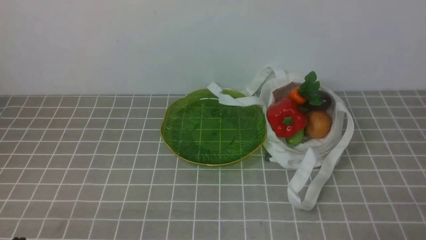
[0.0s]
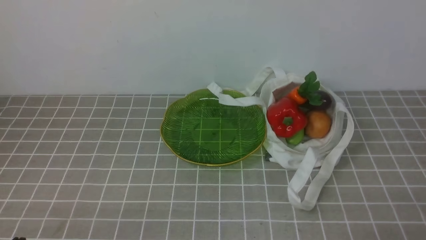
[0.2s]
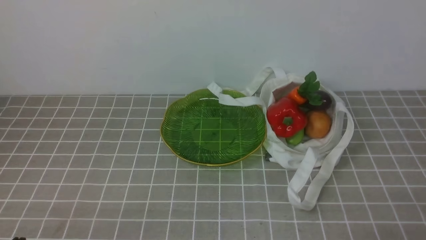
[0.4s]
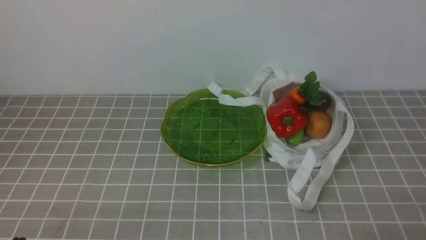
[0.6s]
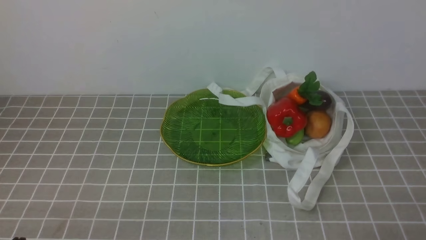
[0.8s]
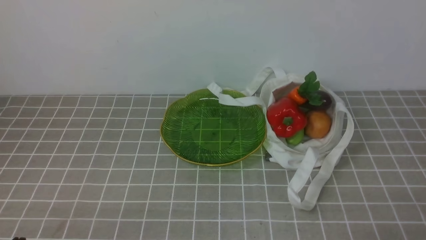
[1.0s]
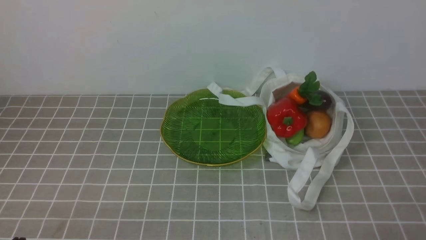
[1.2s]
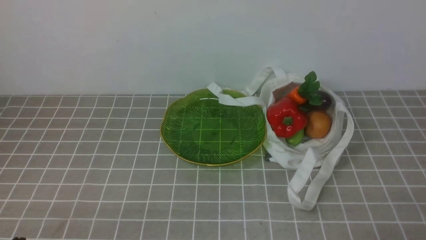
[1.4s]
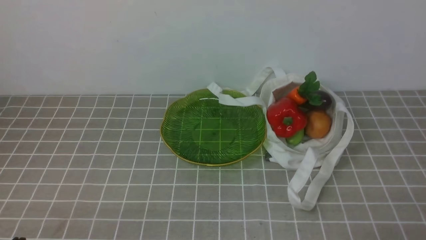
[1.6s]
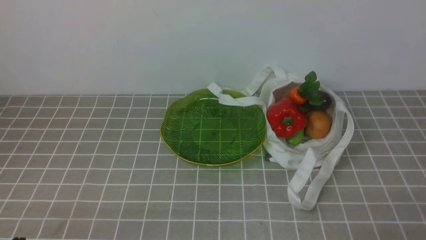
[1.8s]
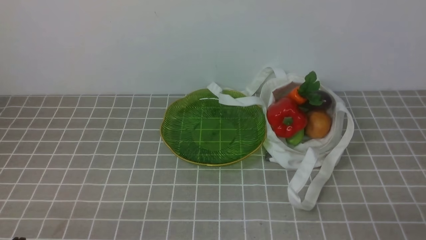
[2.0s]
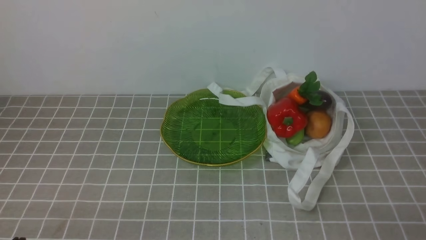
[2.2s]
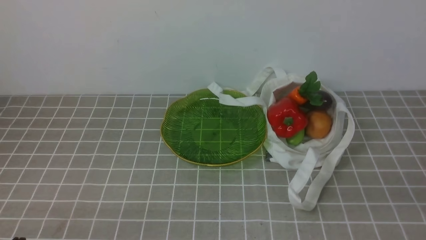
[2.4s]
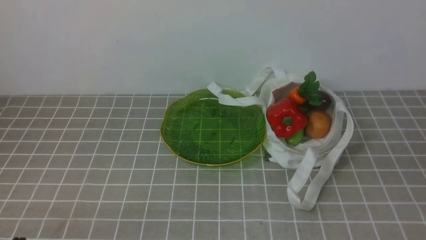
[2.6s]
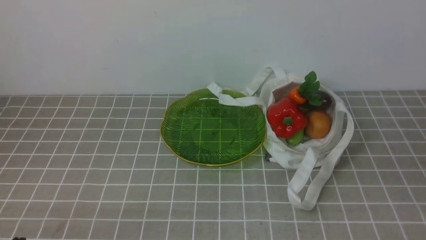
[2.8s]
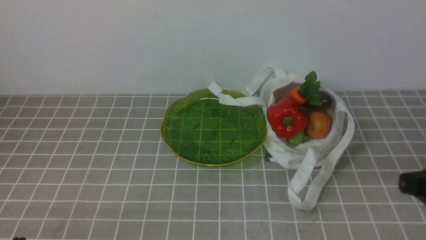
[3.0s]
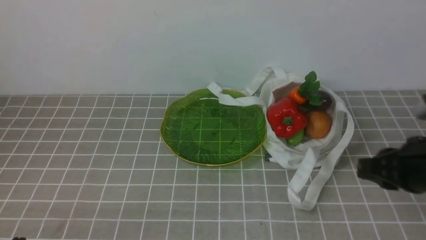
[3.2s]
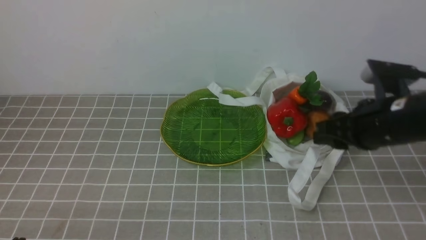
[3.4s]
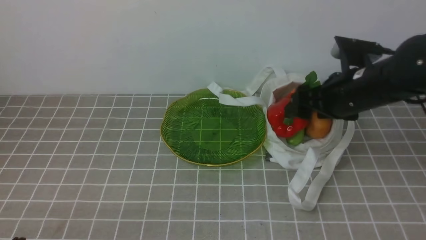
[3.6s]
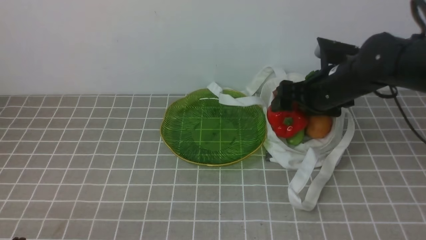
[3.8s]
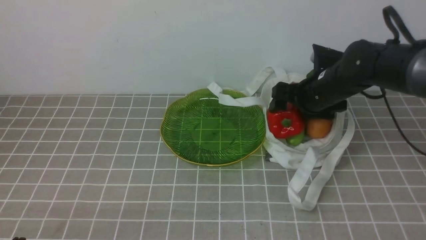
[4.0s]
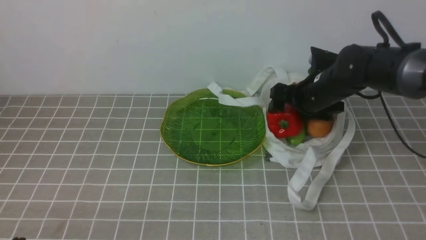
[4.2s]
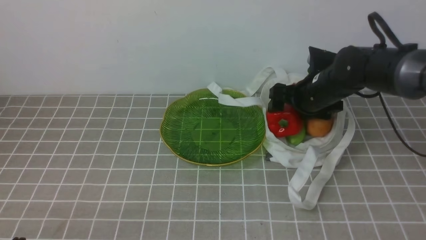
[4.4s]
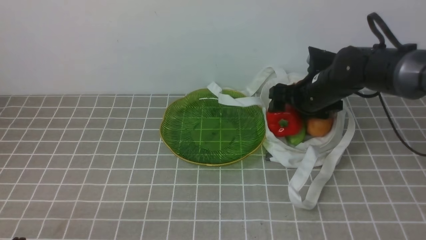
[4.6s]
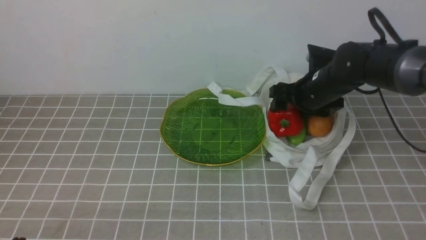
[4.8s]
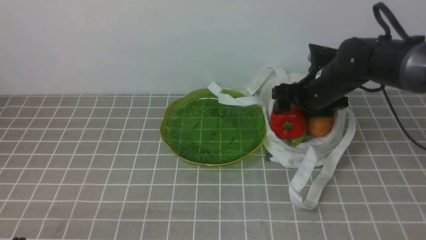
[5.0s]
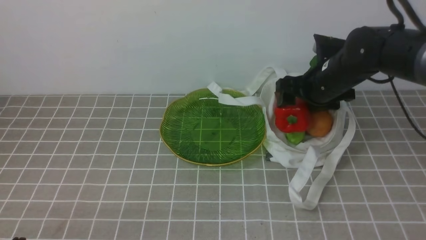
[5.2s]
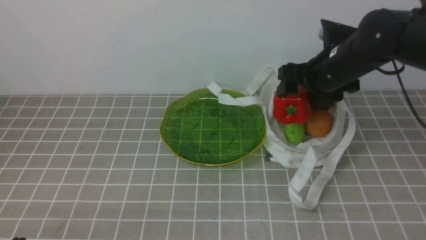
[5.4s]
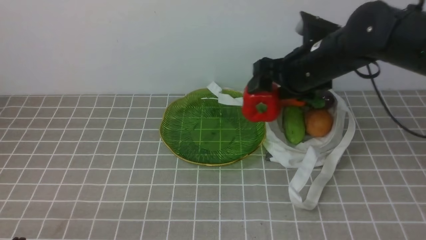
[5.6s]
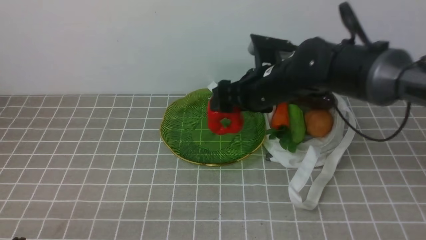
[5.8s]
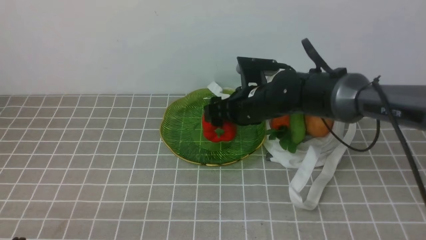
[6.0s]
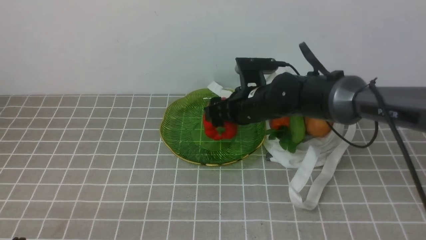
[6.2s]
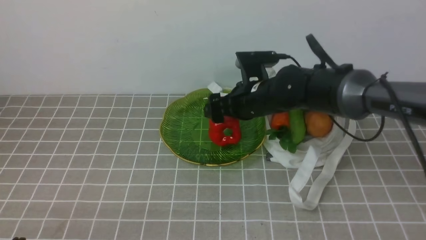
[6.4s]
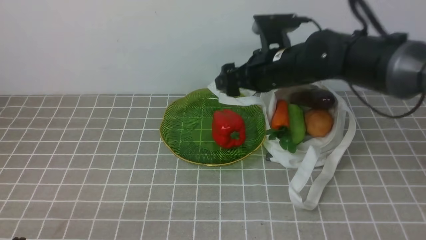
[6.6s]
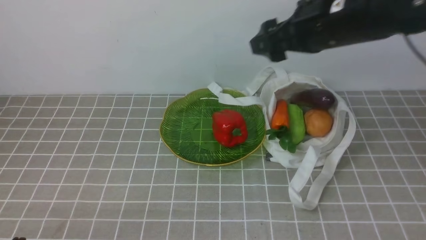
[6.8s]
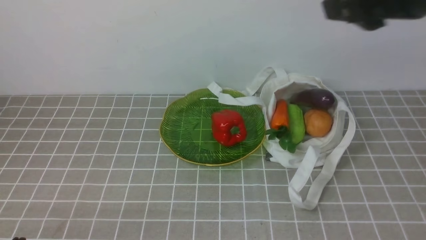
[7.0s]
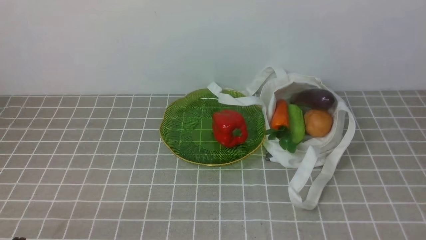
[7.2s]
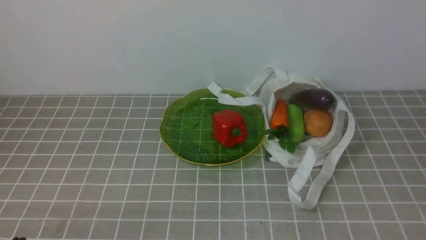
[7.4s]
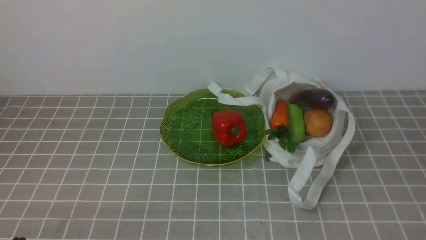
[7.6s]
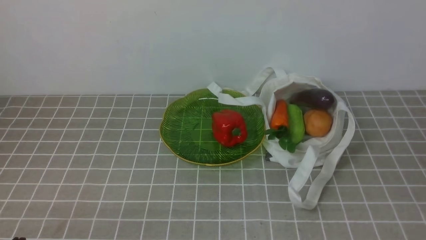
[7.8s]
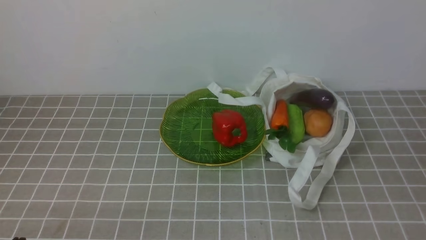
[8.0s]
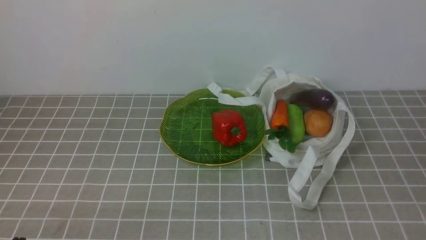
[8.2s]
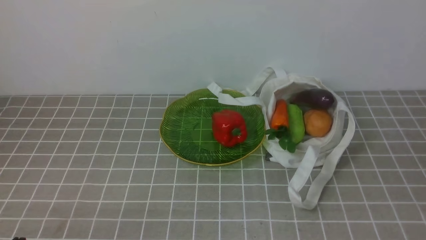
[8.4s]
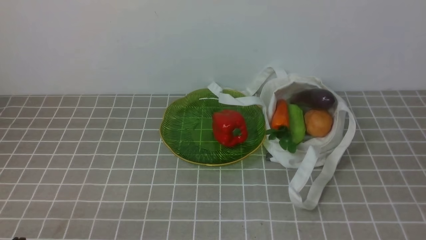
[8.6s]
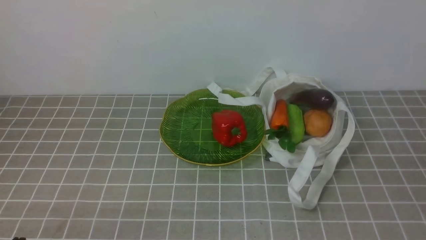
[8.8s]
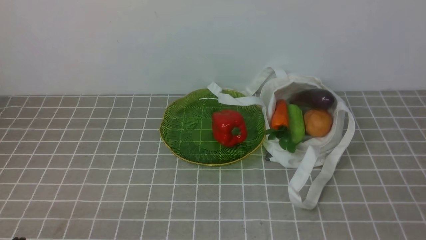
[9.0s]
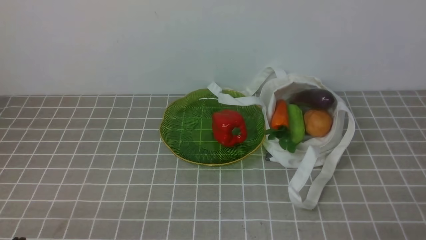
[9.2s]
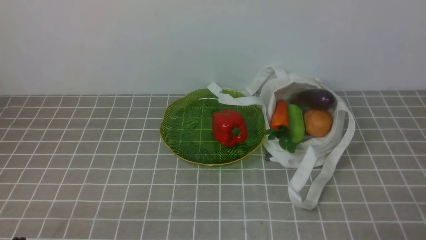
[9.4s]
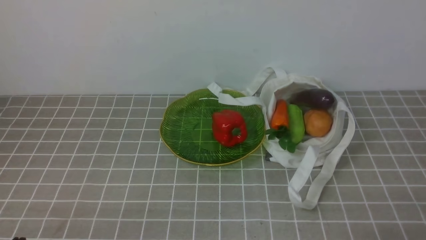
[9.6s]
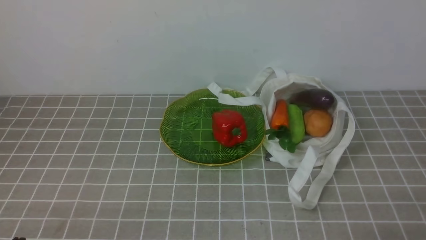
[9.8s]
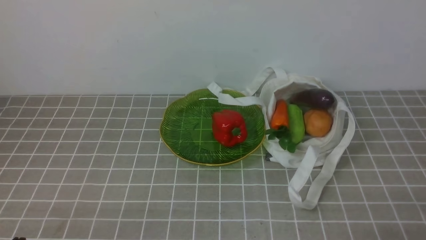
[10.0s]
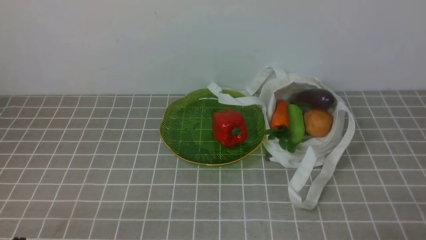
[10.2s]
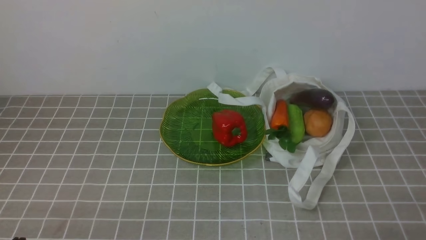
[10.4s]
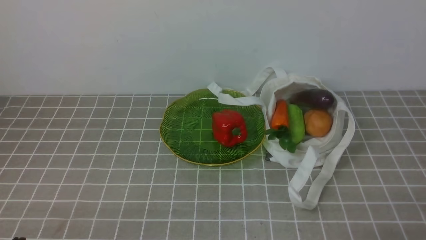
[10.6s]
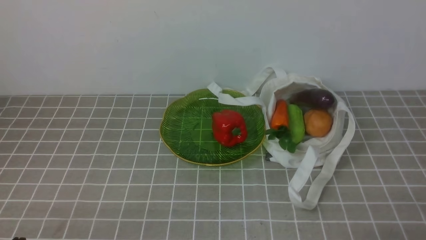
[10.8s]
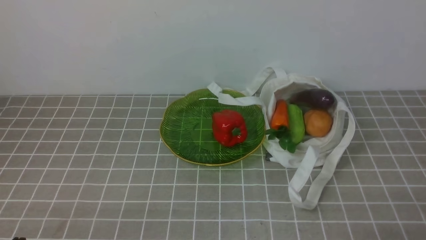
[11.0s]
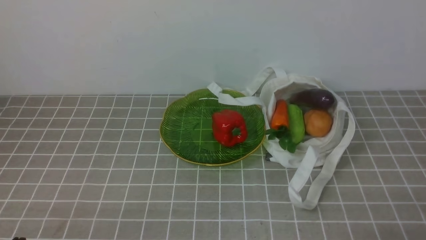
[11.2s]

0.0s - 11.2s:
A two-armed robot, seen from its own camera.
Task of the whole recording: take vegetables from bag on grey coffee tablecloth place on plate.
Step, 0.0s - 4.8s: Grasp the bell pepper with right gripper.
Step, 5.0s - 6.6s: Place the bell pepper on the plate with right gripper.
0.0s - 1.6s: The two grippers keep their place.
1.6s - 3.2s: The right gripper shifts roughly 20 cm forward and upward.
3.2s - 4.8s: The right gripper travels forward by some 20 cm, and opens its fingers.
4.8s - 6.4s: The right gripper moves to the left, some 10 cm.
6.4s - 8.0s: The right gripper moves backward and to the right, approximately 40 cm, and closes its fingers.
9.6s - 11.2s: Neither gripper changes place.

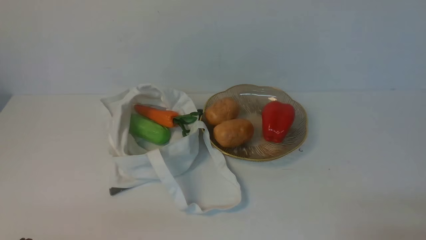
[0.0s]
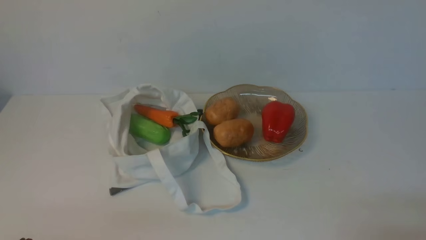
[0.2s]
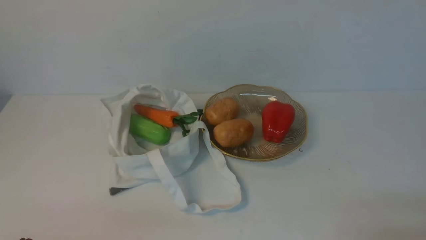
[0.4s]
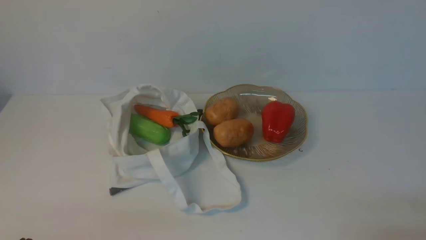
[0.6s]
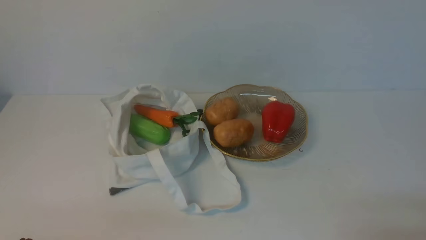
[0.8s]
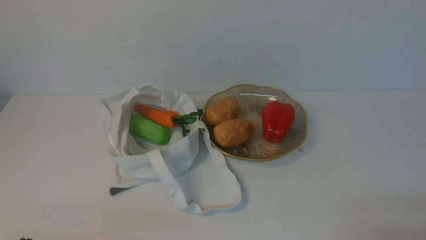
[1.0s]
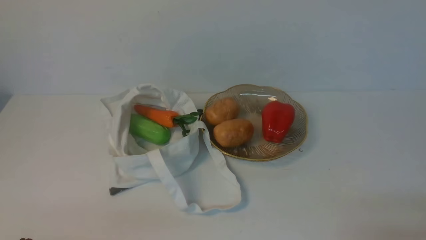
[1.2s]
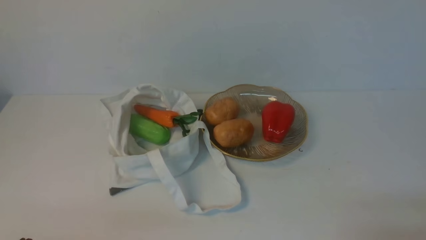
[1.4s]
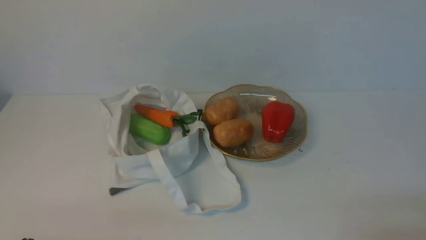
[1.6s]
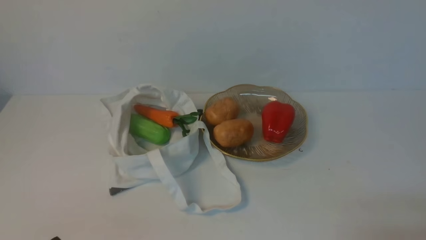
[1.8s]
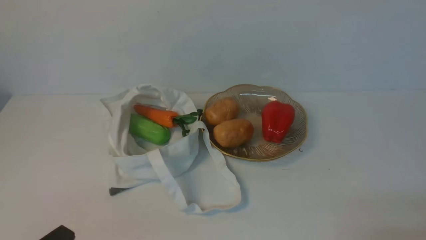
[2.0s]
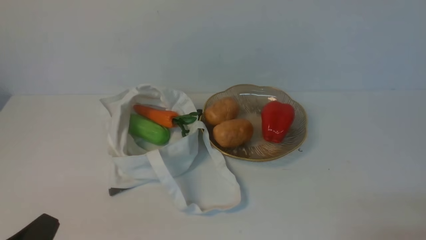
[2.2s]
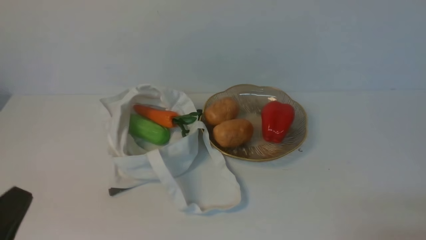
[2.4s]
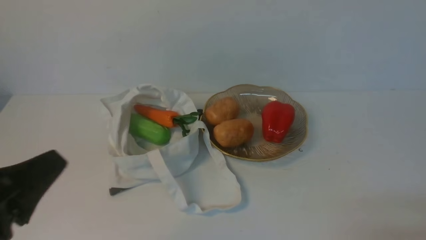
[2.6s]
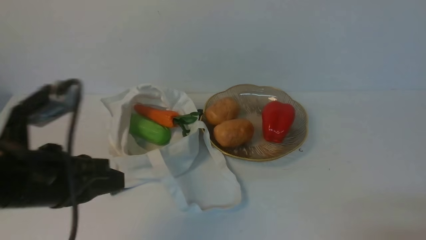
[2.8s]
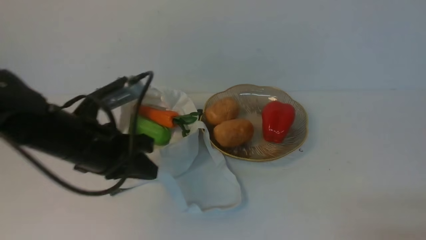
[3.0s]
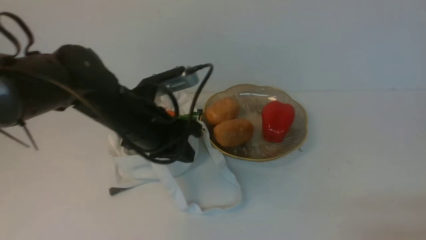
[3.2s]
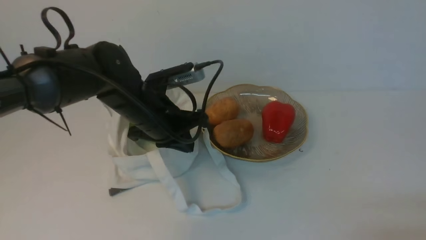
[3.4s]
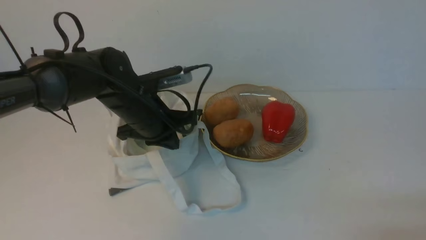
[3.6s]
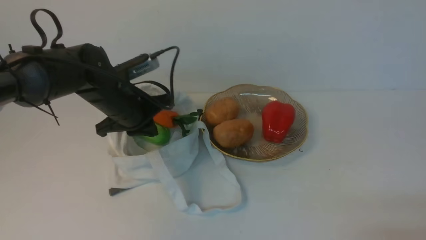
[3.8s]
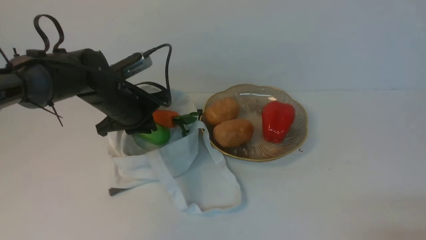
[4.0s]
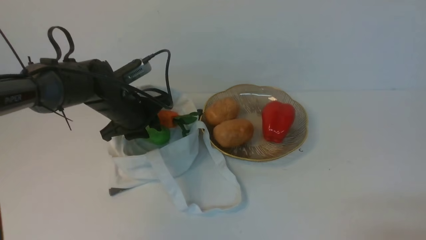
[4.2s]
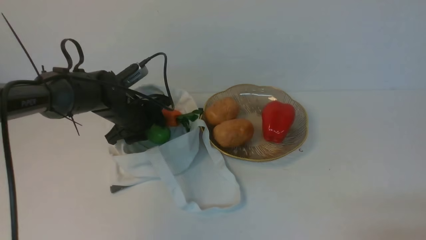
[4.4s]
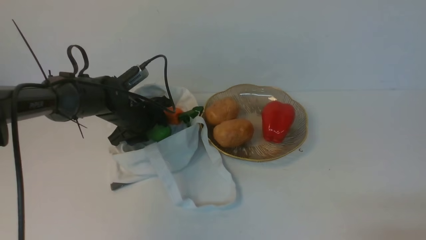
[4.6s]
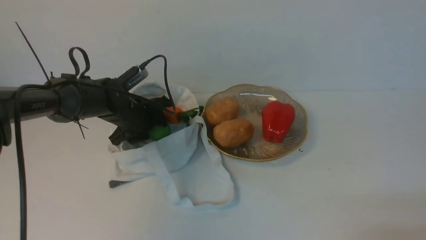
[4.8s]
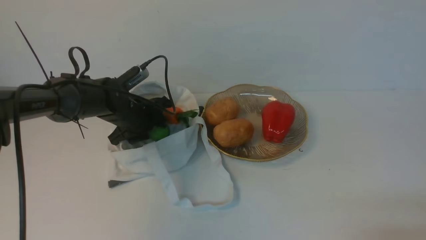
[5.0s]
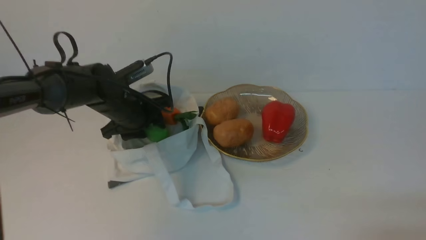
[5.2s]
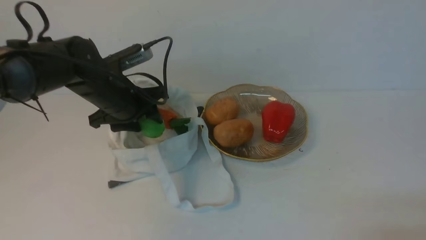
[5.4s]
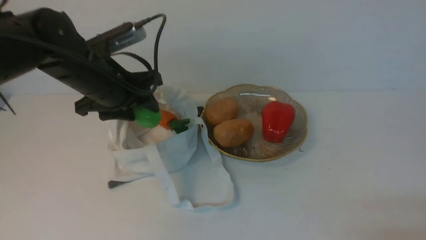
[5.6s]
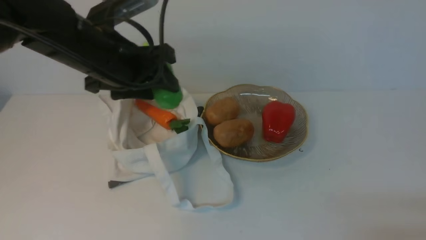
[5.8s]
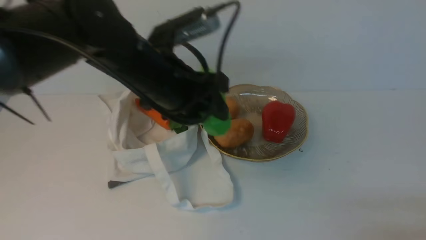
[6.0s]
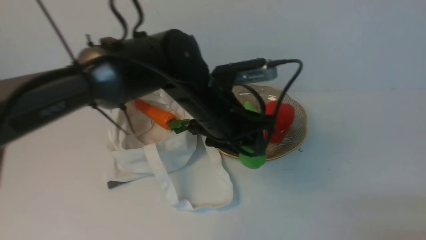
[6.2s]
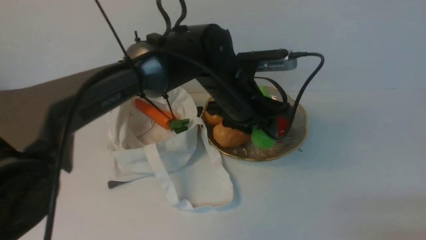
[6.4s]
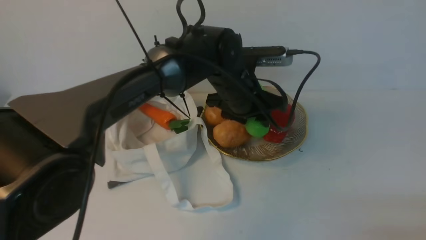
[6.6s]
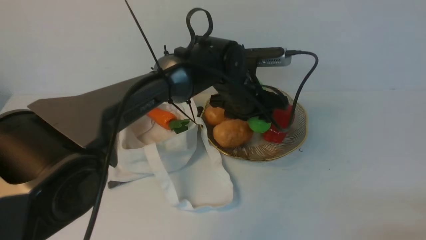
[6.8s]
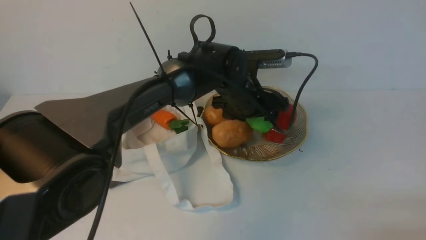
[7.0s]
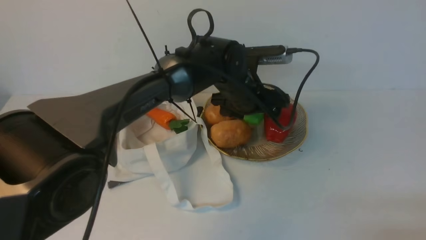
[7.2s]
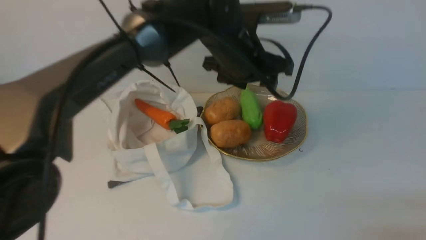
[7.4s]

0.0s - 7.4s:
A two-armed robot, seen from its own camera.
Task of the whole recording: take vegetables from cloth bag on white table place on plate.
Step, 0.0s - 5.0s: Grasp the bitter melon with left gripper.
Step, 5.2s - 7.2s: Place the bitter melon on the plate with left gripper.
1.4s - 3.0s: The left gripper heads forward, upward and to the right, covering approximately 20 cm.
3.0s - 4.4s: The left gripper shifts some 20 cm forward and downward, and opens up.
4.4s - 6.0s: The left gripper moves upward, backward and to the right, roughly 20 cm.
6.0s - 7.4s: The left gripper heads to the right and forward, covering roughly 15 cm.
